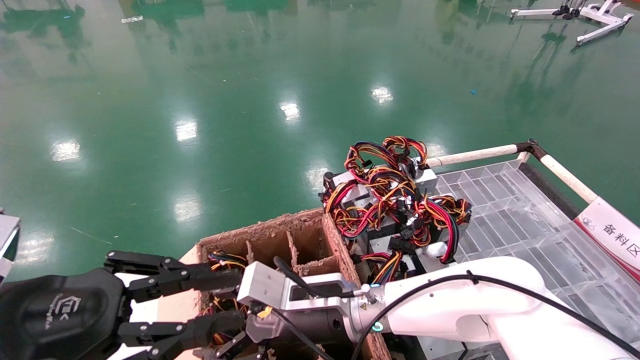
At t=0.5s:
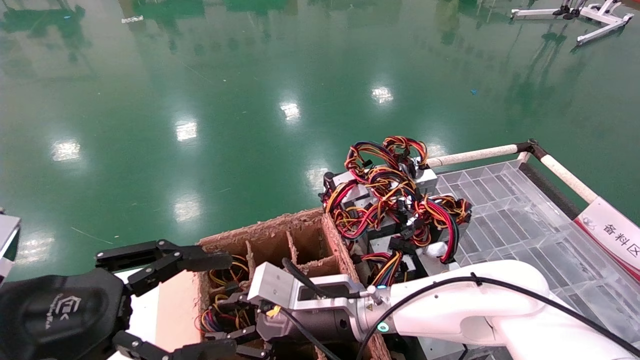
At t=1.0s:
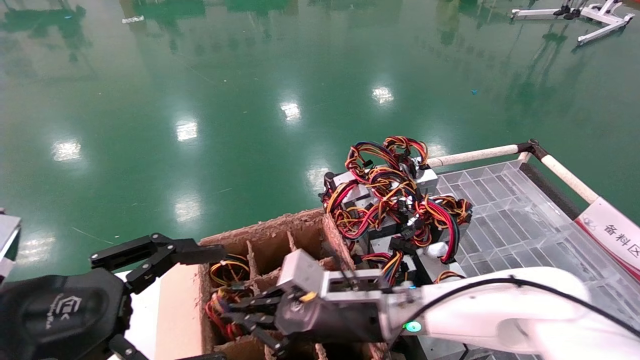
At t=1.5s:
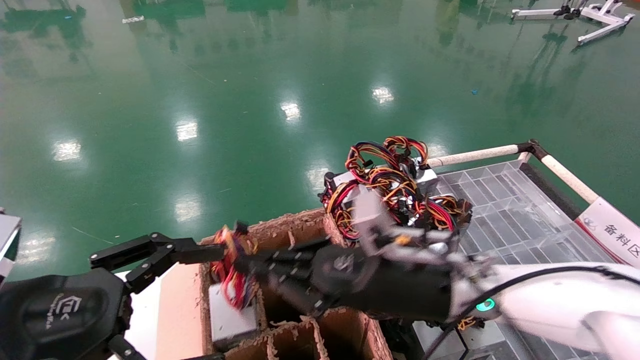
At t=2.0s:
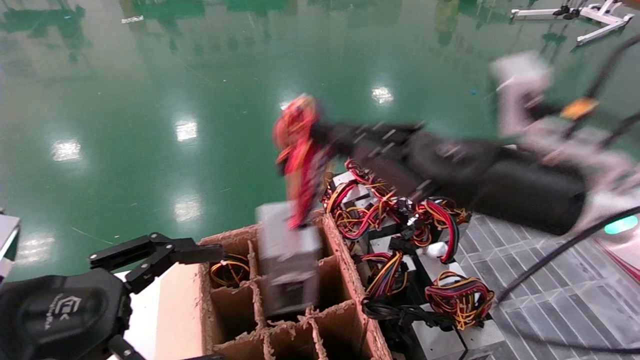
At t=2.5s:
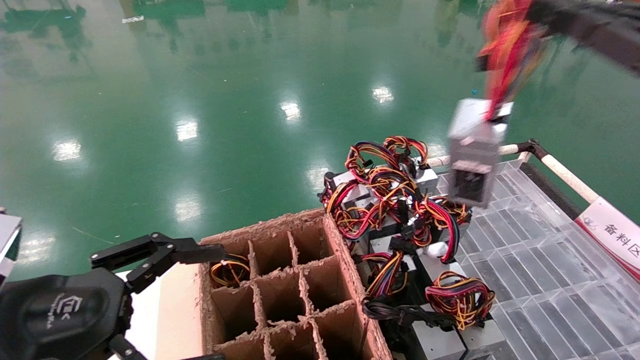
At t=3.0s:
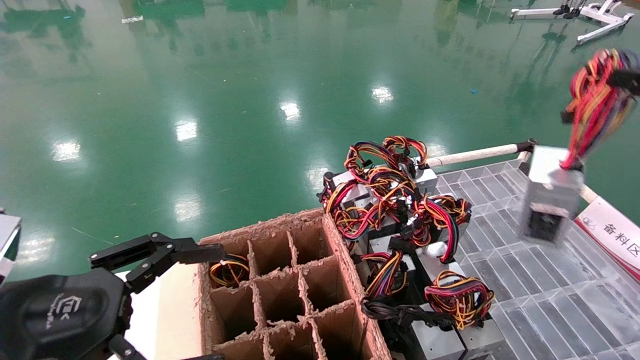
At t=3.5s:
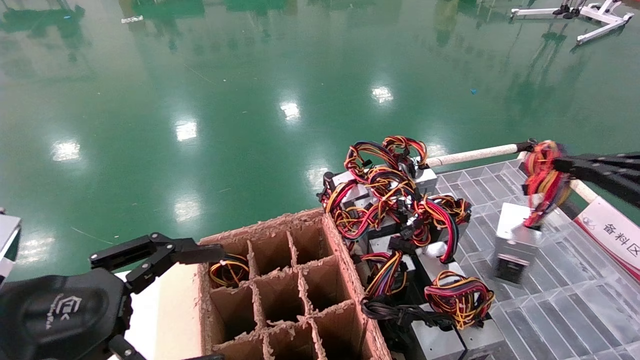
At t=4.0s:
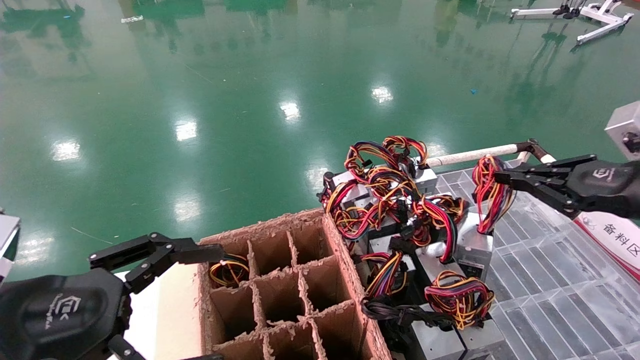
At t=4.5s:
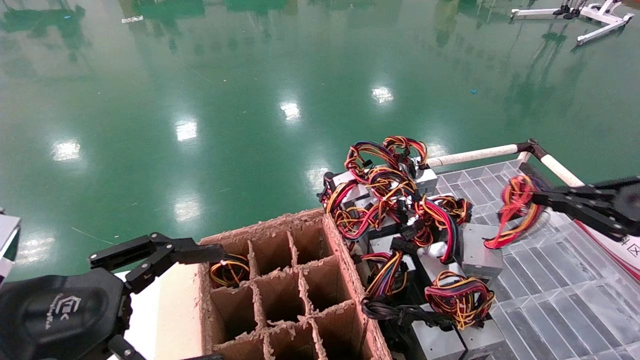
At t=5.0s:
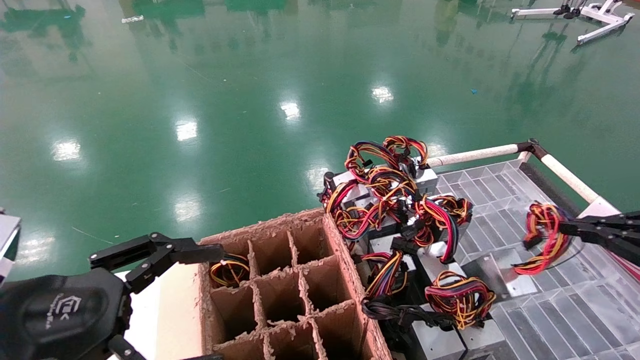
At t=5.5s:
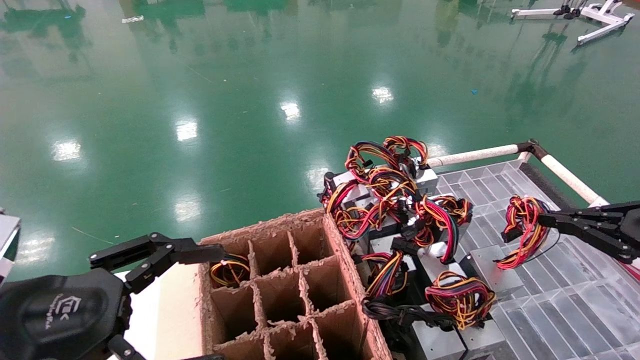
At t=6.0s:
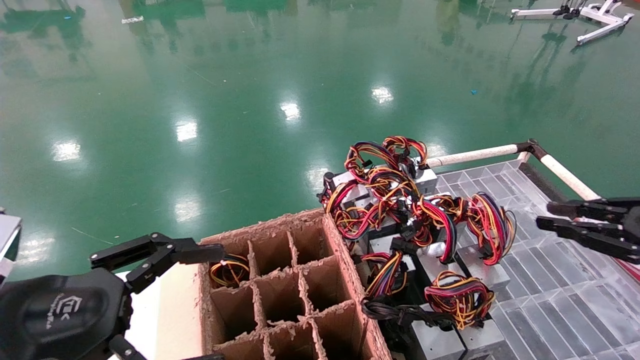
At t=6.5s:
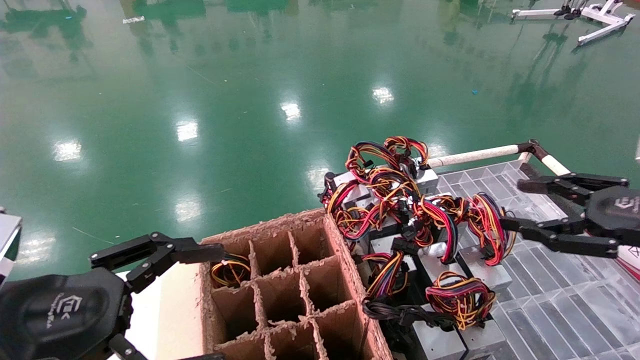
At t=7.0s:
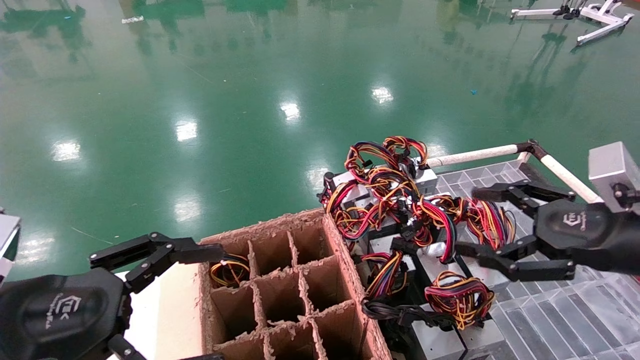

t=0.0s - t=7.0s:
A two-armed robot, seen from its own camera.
Step, t=1.0s - t=5.5s: Place the power supply on the operating table.
t=0.0s - t=2.0s: The right gripper is displaced to the right, upward and backward by about 30 cm, and closes its fingers, while the left gripper opens.
t=2.0s - t=3.5s: The right gripper travels to the right by roughly 25 cm.
t=3.5s - t=5.0s: The right gripper changes place by roughly 5 cm.
t=5.0s - t=7.0s: The right gripper moves to the left, about 10 cm, and opens its fingers.
